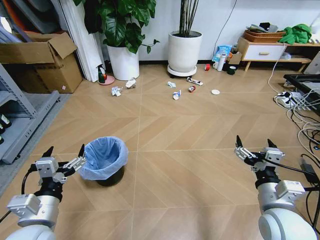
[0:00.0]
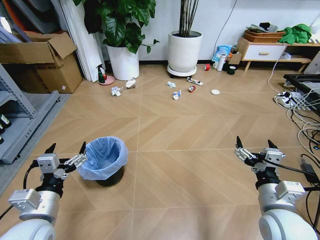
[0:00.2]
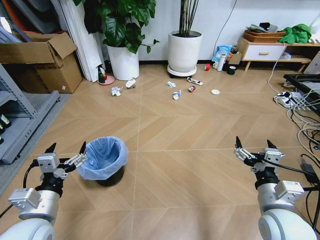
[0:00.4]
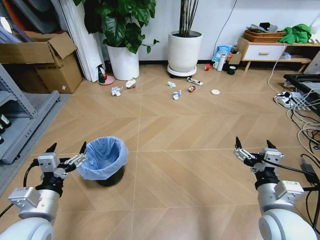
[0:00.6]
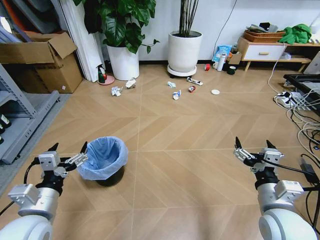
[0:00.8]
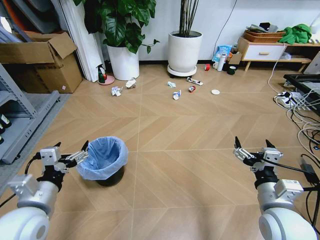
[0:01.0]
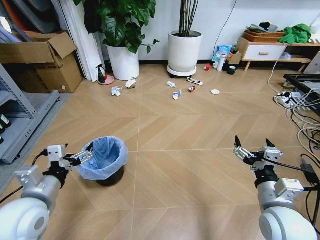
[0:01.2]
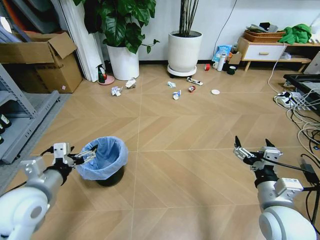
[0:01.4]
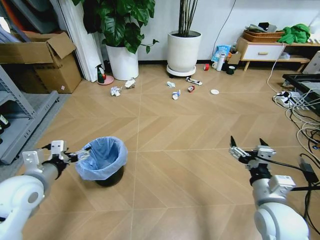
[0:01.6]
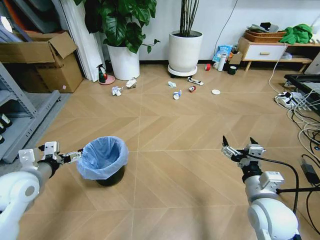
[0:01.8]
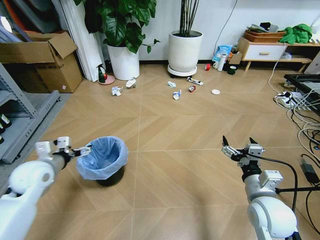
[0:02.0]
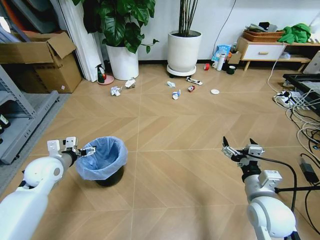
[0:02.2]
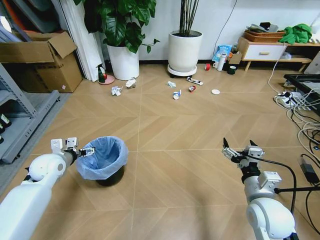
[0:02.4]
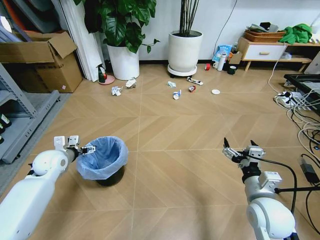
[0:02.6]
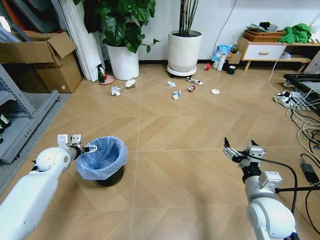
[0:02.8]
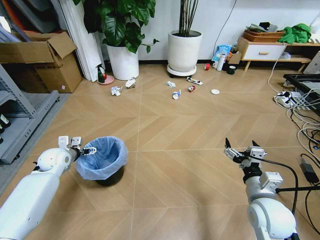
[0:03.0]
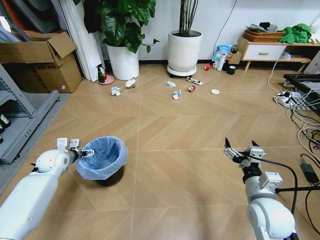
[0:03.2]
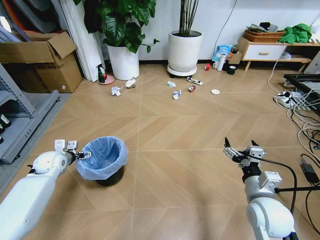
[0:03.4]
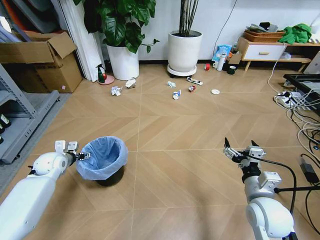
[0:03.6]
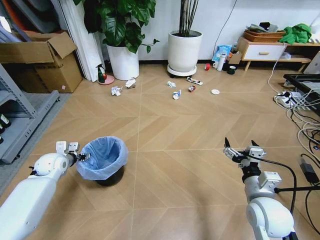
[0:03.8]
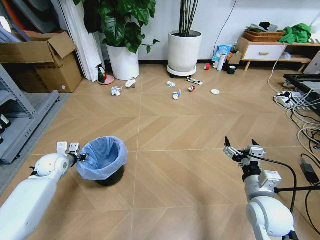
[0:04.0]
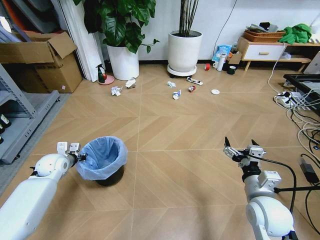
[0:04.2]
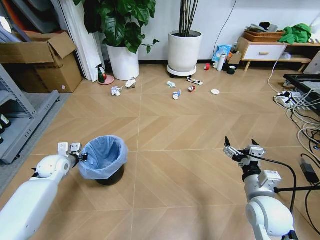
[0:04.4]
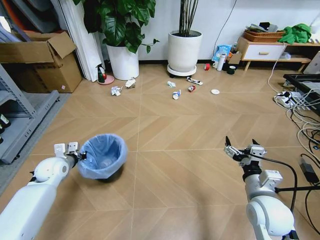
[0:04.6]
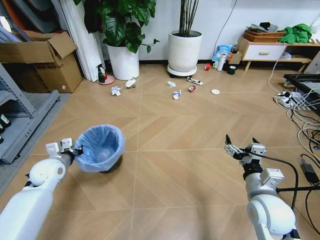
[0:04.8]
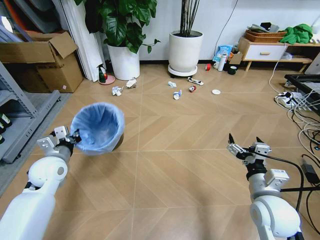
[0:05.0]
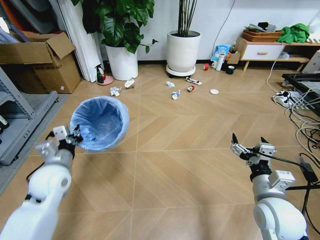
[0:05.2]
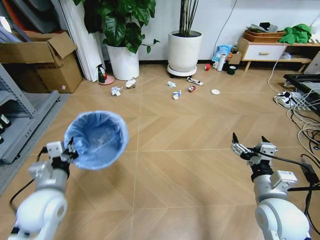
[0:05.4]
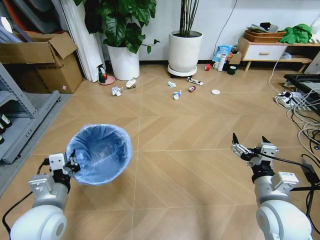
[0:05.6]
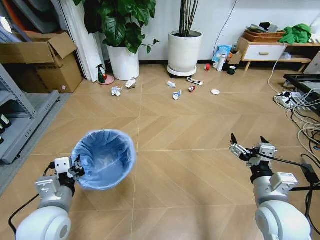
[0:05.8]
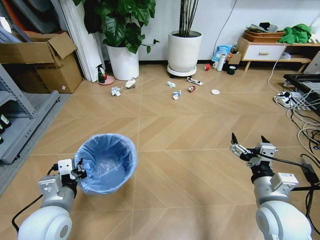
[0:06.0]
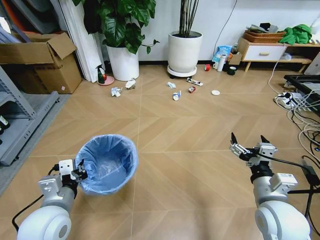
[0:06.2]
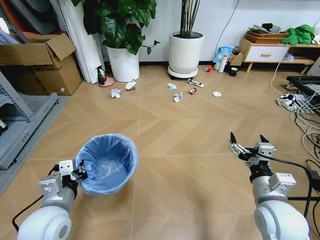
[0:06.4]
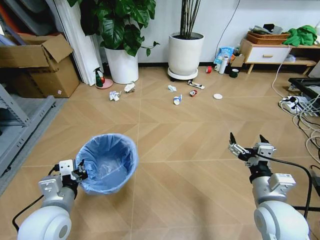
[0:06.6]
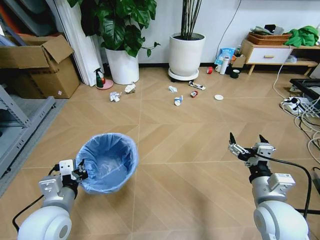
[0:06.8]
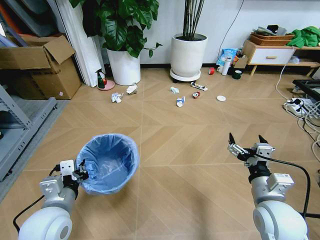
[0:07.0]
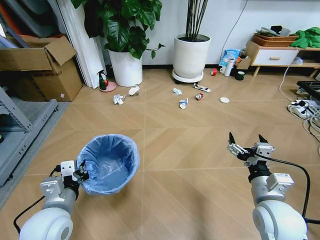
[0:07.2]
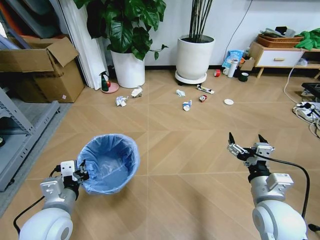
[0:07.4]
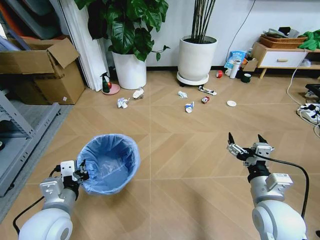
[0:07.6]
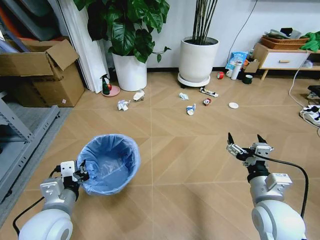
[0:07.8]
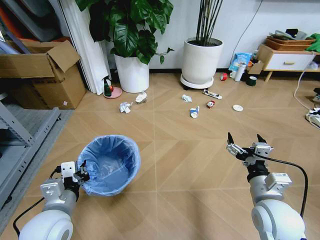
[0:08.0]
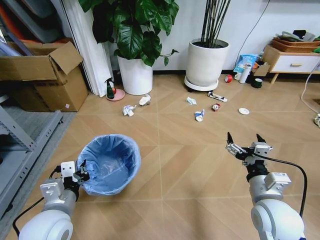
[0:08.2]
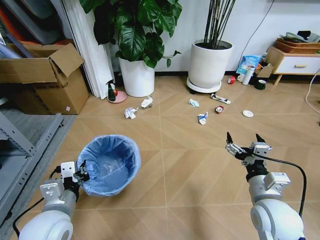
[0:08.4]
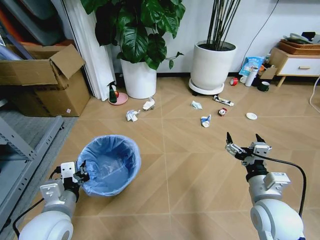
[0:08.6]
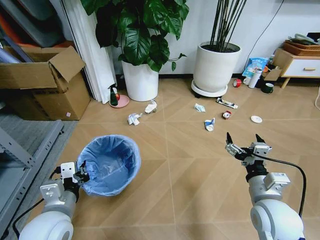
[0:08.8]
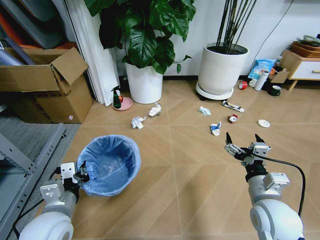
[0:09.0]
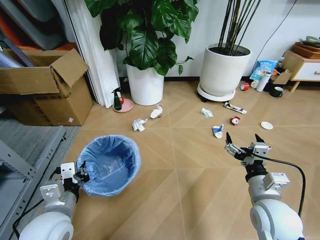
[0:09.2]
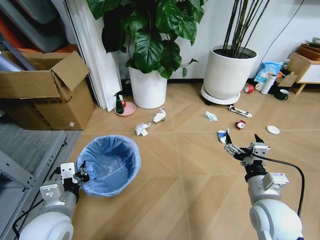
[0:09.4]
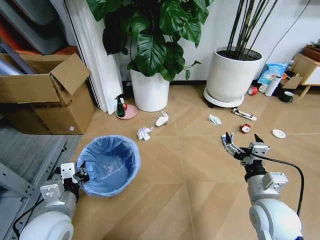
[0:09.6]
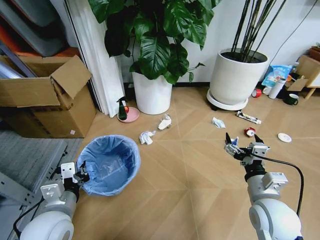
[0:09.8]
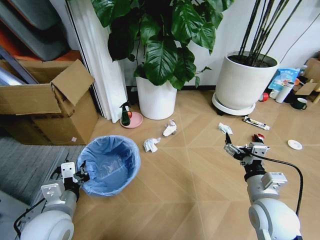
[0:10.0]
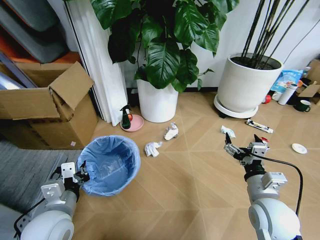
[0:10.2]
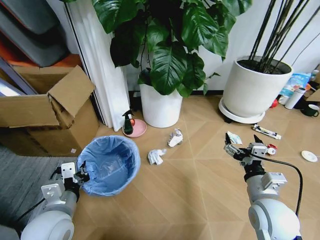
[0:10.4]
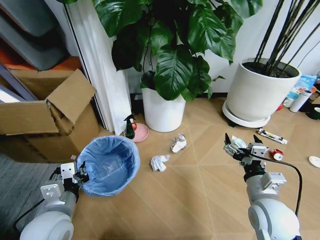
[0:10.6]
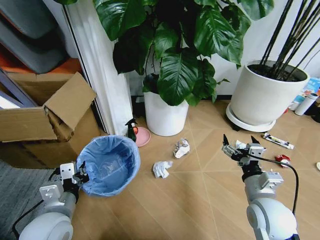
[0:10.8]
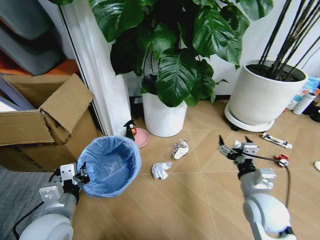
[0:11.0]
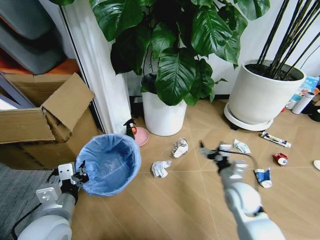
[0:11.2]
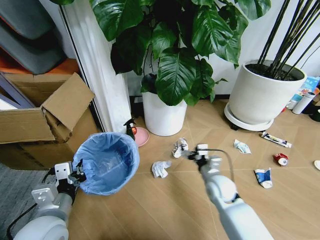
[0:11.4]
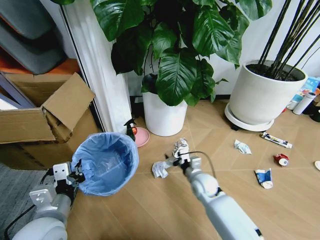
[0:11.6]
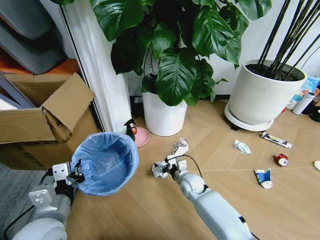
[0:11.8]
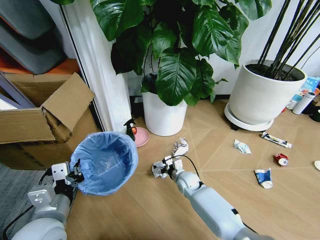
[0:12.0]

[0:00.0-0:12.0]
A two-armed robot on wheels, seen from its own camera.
Task of the whole recording: Pick up the trash bin and place the garbage on the floor into it.
0:01.6 to 0:03.0: The left gripper shifts approximately 20 cm forward and downward.
0:03.0 to 0:04.4: The left gripper closes its fingers.
0:04.4 to 0:06.0: The left gripper heads backward, to the right and upward, covering approximately 30 cm.
0:10.4 to 0:12.0: The right gripper travels downward, forward and to the left by approximately 30 cm.

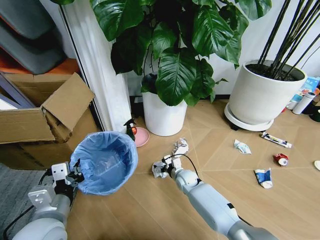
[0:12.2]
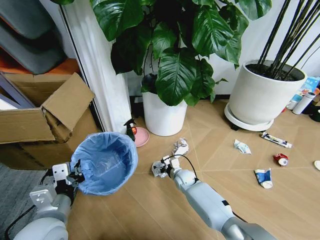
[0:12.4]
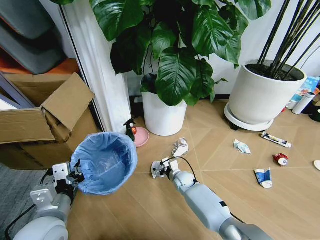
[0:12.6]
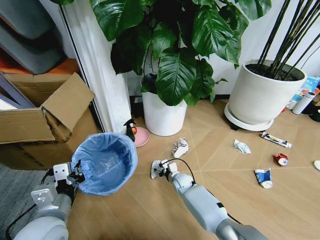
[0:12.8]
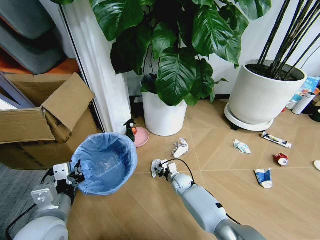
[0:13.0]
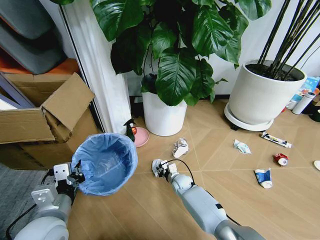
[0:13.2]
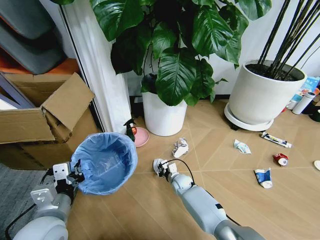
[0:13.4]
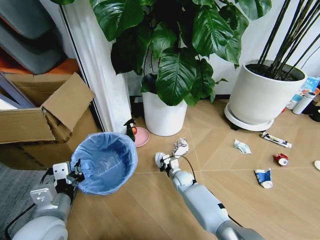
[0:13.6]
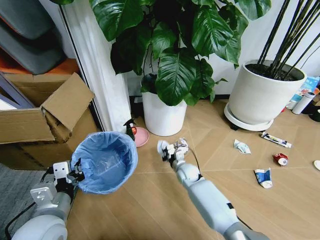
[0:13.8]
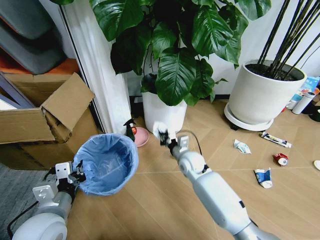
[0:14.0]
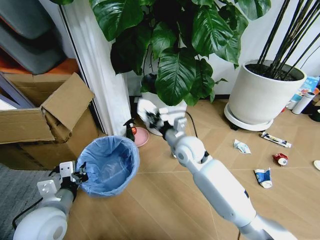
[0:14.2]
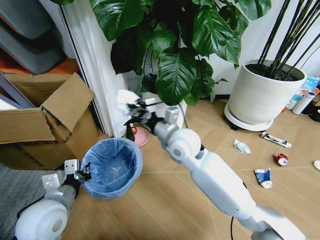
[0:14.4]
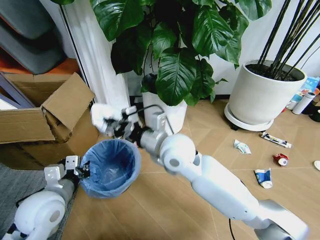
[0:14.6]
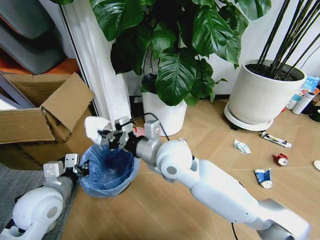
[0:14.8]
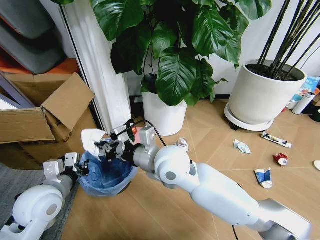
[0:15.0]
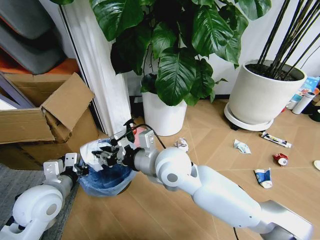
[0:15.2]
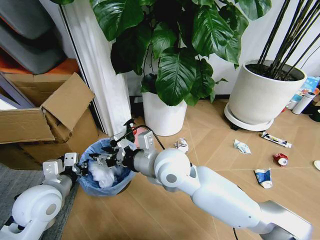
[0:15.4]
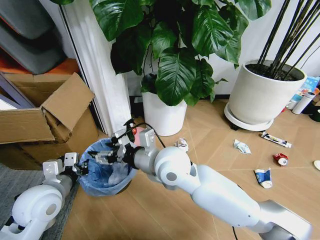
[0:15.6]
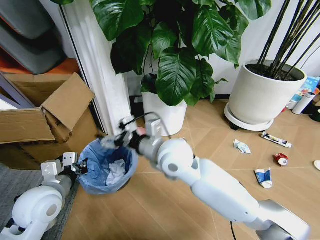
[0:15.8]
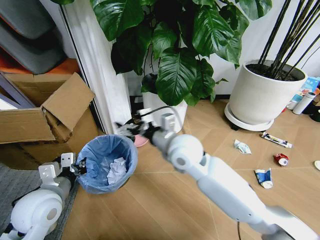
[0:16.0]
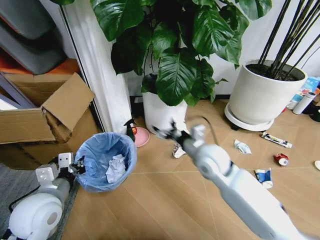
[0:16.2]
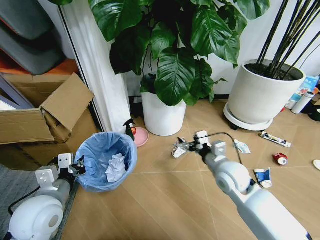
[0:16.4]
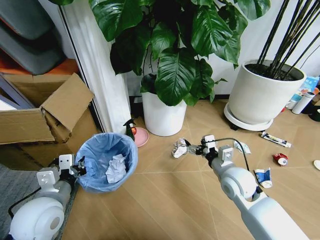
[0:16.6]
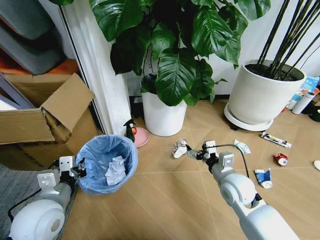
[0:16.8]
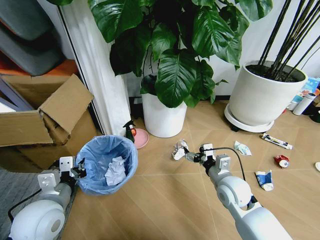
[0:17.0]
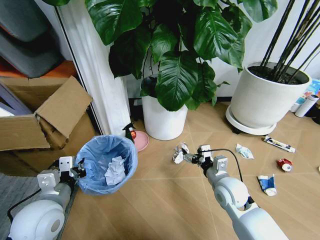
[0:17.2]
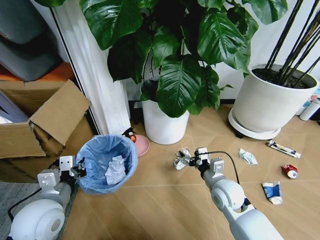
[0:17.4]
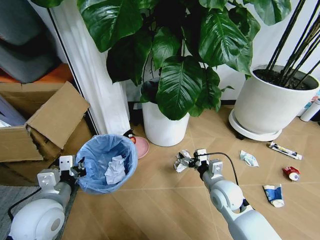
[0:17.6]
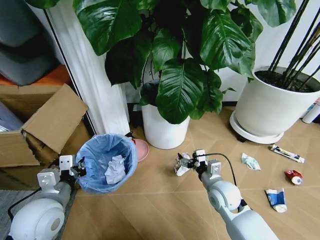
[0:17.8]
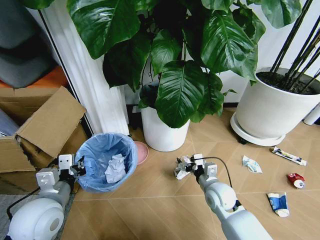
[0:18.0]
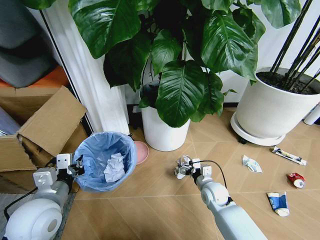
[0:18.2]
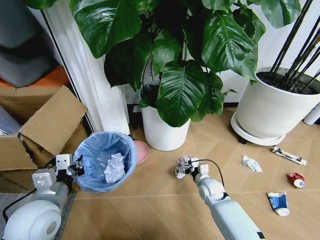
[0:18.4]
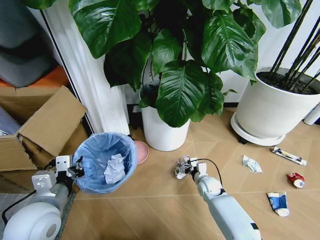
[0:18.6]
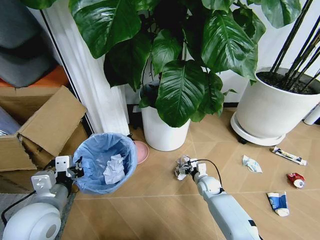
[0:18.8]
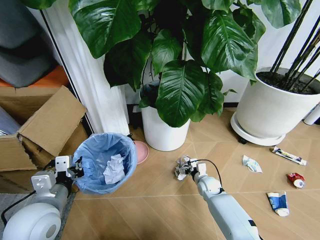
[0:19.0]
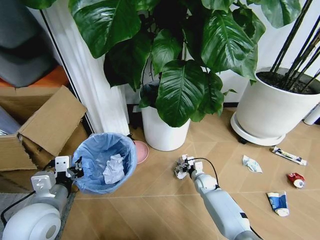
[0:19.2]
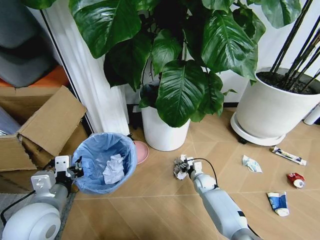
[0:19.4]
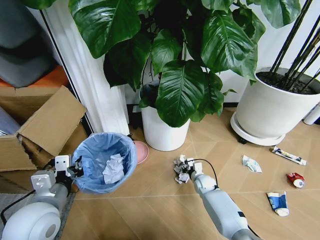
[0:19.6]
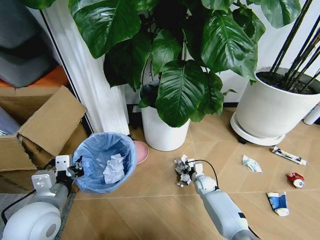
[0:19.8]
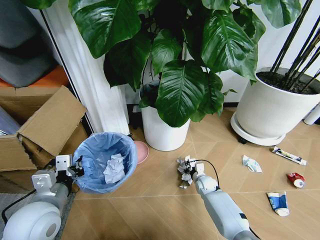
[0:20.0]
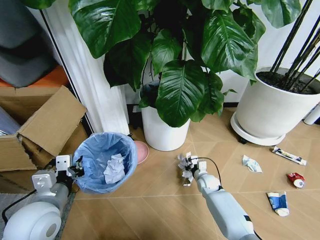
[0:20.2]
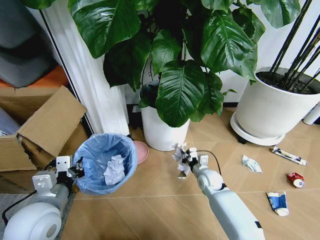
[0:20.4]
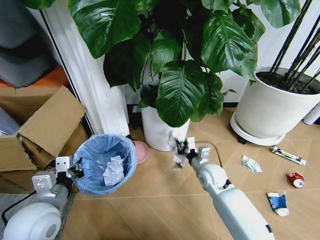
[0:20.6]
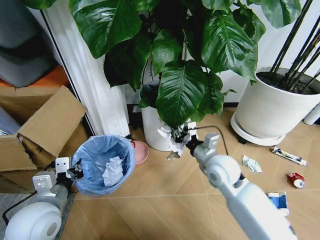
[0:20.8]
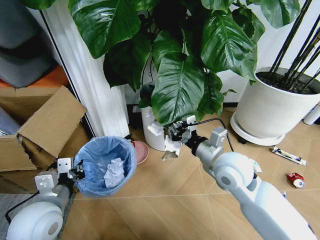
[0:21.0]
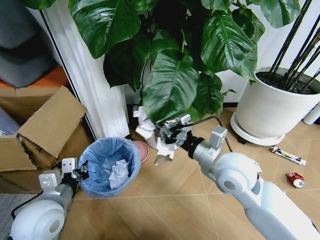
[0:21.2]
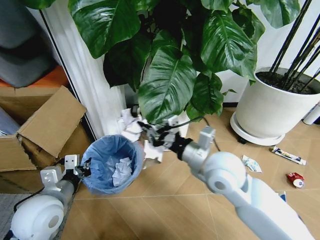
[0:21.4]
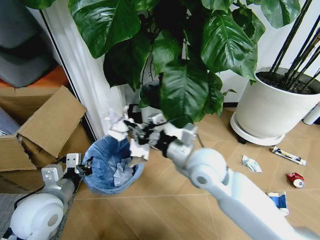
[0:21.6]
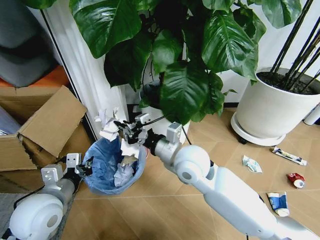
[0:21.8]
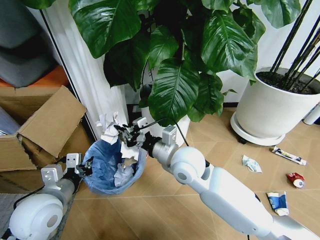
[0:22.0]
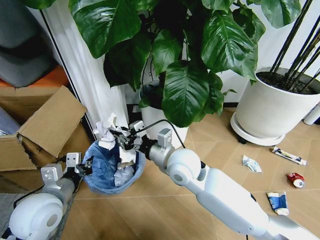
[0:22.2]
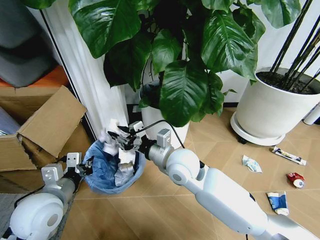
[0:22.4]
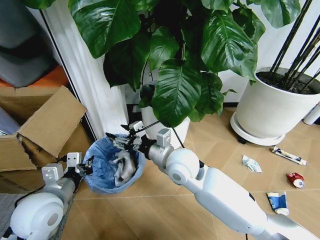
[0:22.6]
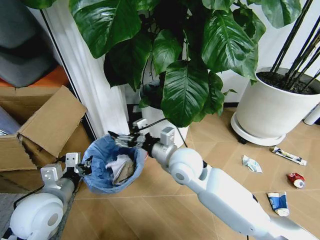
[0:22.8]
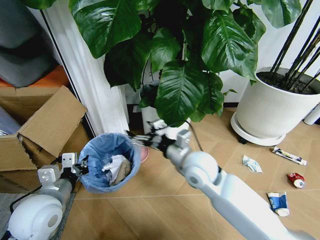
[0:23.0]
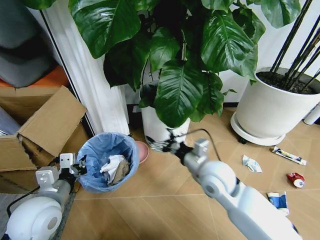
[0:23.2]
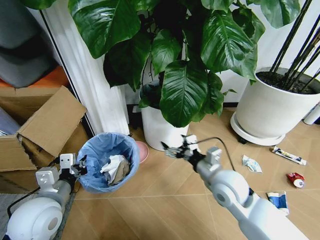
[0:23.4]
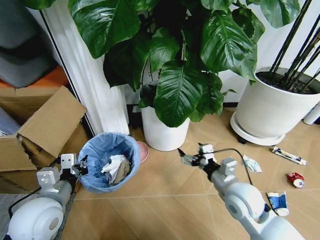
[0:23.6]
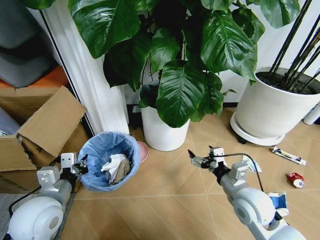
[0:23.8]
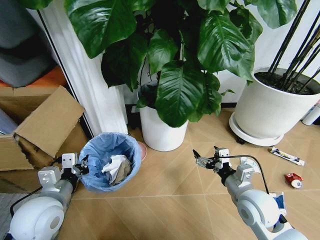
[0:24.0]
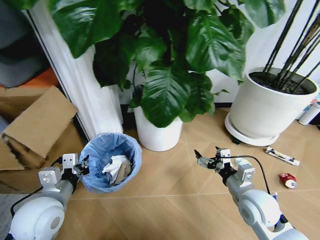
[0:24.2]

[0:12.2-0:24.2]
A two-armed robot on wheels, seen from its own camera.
Task of the whole recording: Pick up the trash bin and place the garbage on the floor into it.
0:12.2 to 0:13.8: The right gripper closes its fingers.
0:13.8 to 0:15.2: The right gripper moves upward and backward, approximately 30 cm. Meanwhile the left gripper shifts roughly 5 cm forward.
0:15.2 to 0:16.6: The right gripper travels to the right and downward by about 25 cm, and opens up.
0:16.6 to 0:18.2: The right gripper shifts some 15 cm downward.
0:18.2 to 0:19.8: The right gripper shifts approximately 10 cm downward and forward, and closes its fingers.
0:19.8 to 0:21.2: The right gripper goes roughly 35 cm upward.
0:21.2 to 0:22.6: The right gripper heads to the left, covering roughly 10 cm, and opens its fingers.
0:22.6 to 0:24.2: The right gripper moves to the right and backward, roughly 25 cm.
